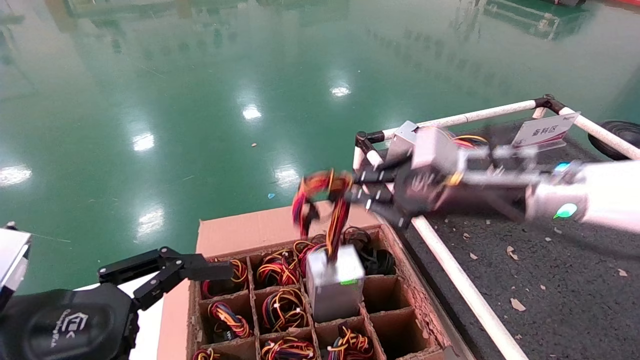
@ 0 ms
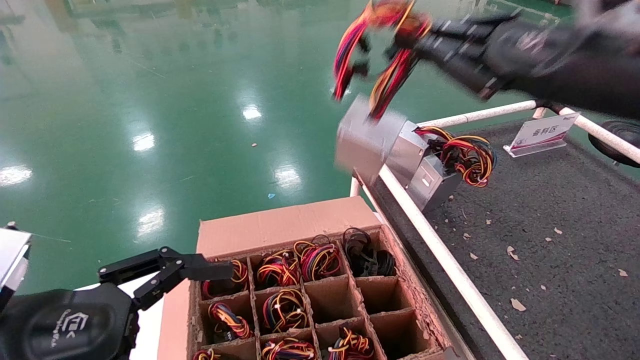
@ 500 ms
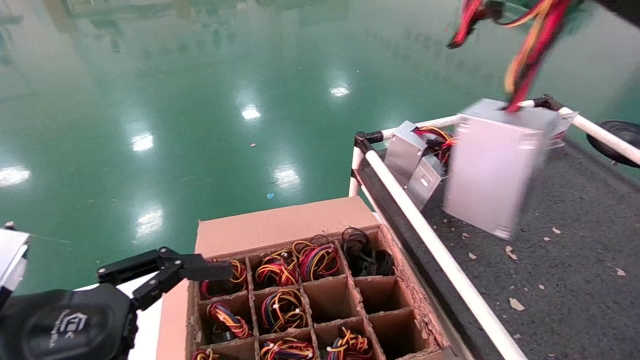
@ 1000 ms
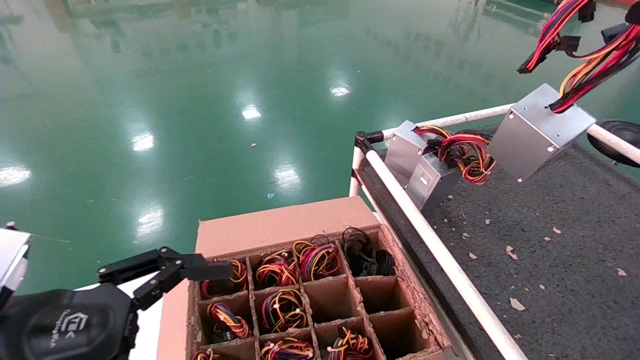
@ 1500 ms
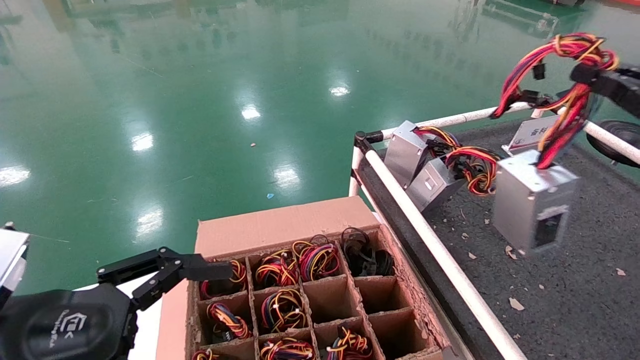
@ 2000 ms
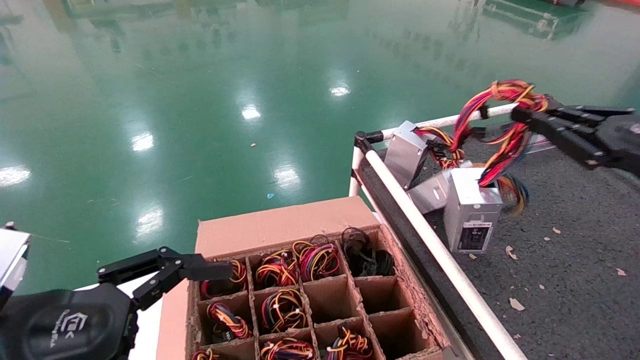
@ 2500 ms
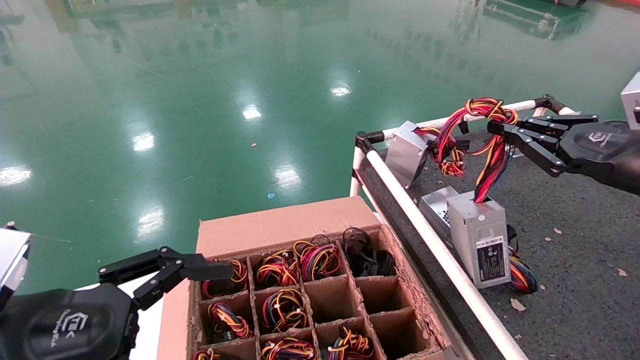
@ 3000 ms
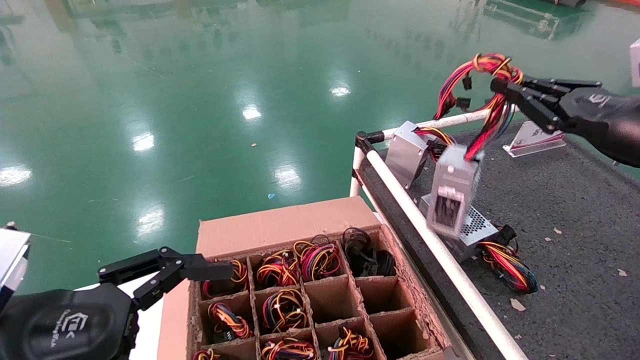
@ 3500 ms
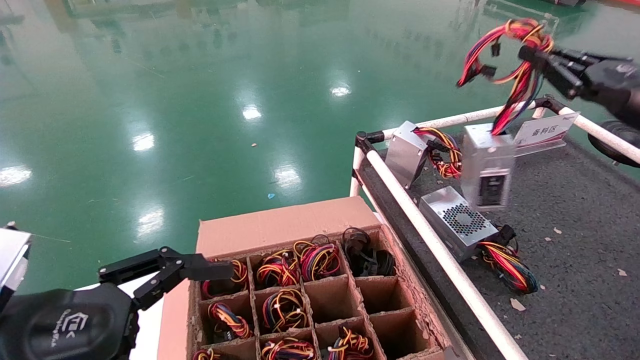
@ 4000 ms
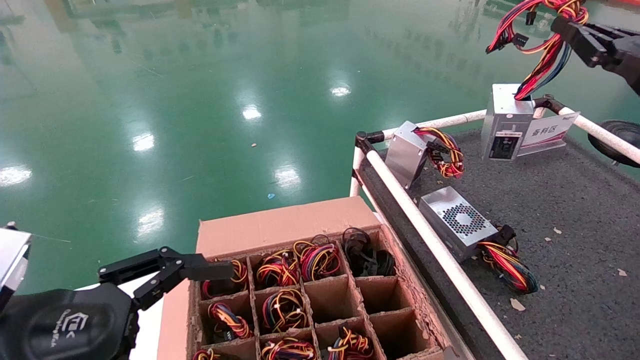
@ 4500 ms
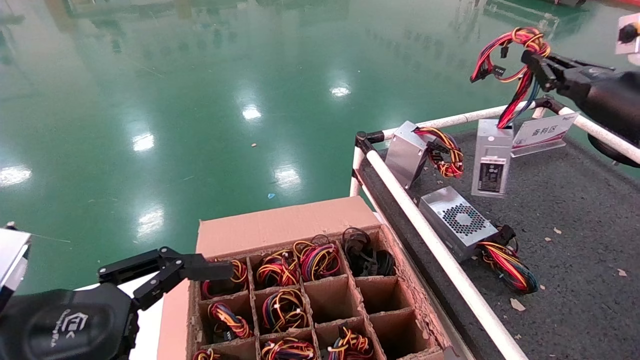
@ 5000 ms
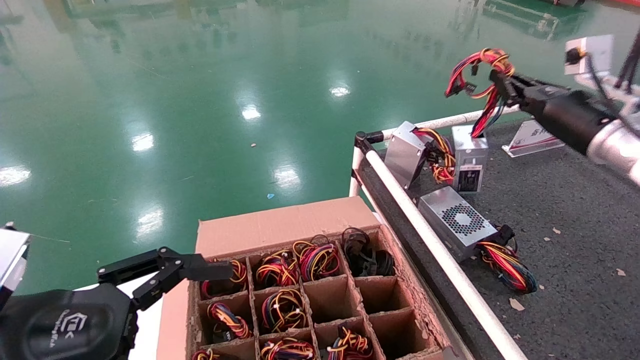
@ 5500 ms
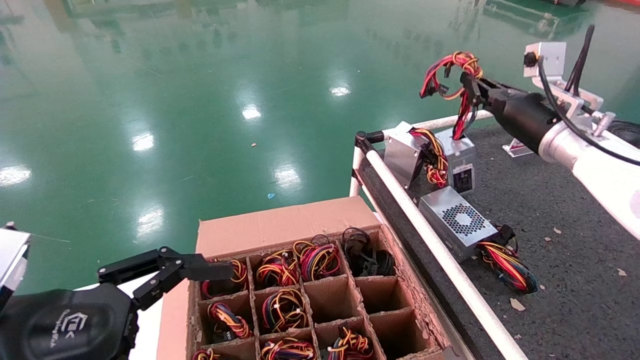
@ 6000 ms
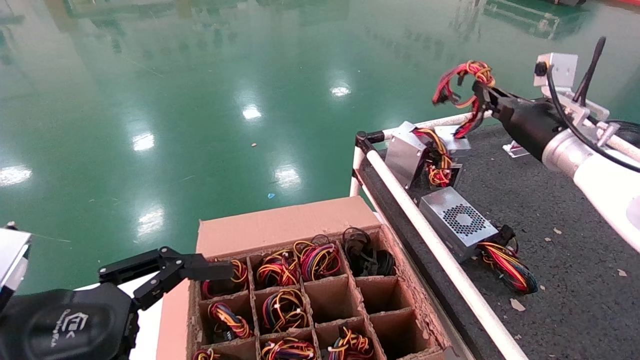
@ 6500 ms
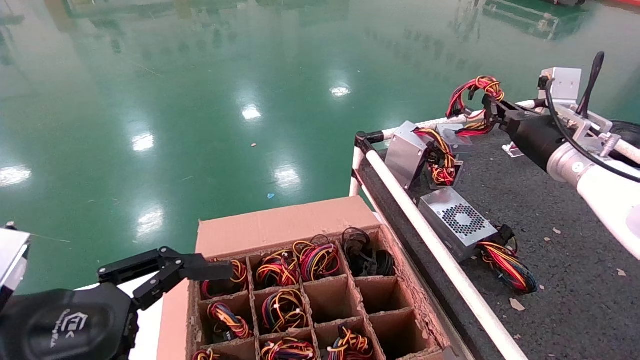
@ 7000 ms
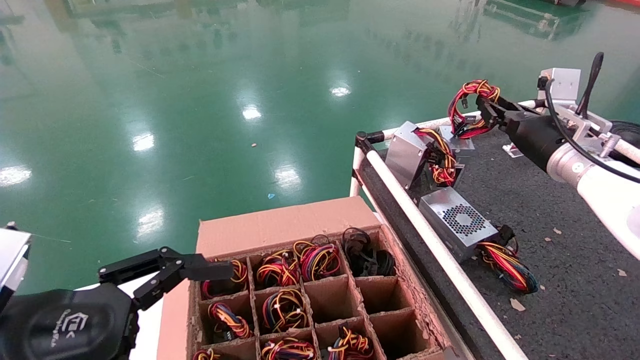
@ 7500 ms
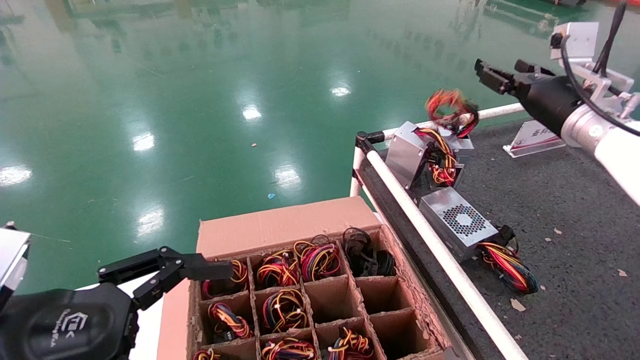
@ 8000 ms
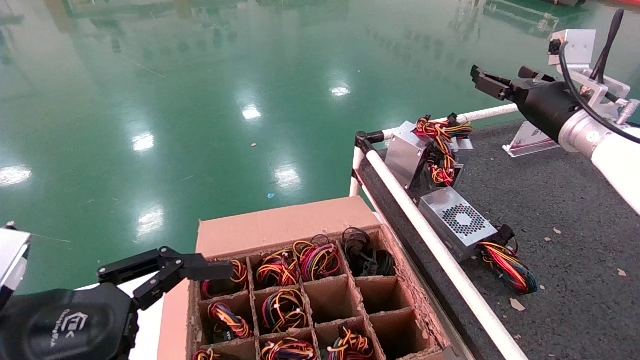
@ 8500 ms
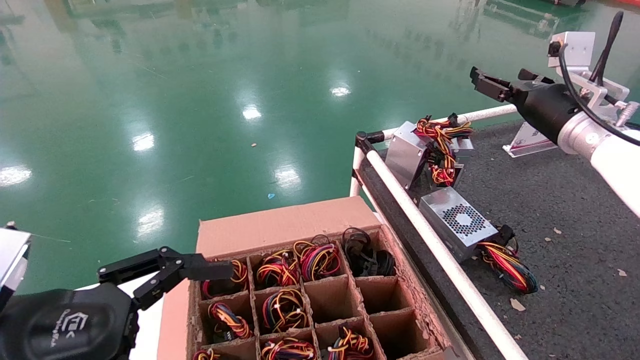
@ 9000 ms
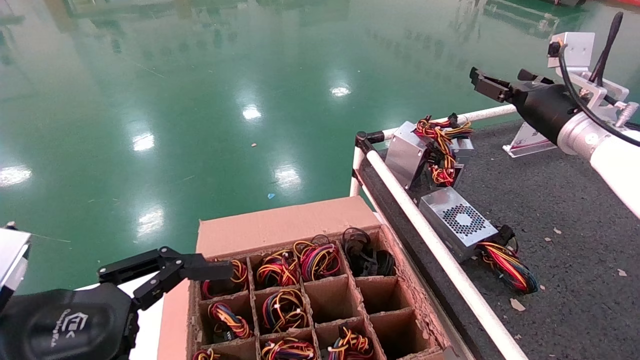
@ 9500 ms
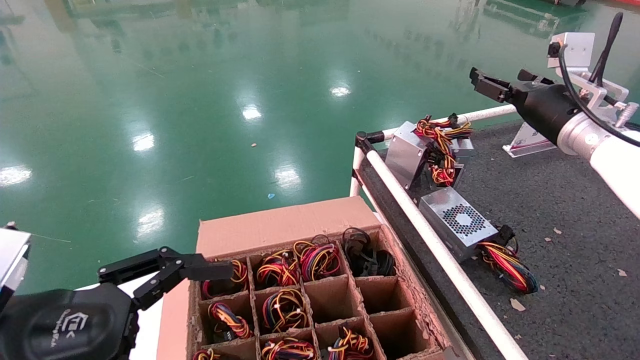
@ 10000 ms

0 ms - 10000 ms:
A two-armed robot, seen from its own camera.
Step, 0 ms - 7500 ms: Place the power supply on the operating table.
0 ms - 2000 ms: The right gripper travels to the right and backward by approximately 25 cm.
2000 ms - 4000 ms: The right gripper moves forward, approximately 10 cm.
4000 ms - 6000 ms: The right gripper heads forward and to the left, covering some 15 cm.
6000 ms - 8000 ms: The right gripper opens its fingers.
8000 ms - 10000 ms: The right gripper opens its fingers.
